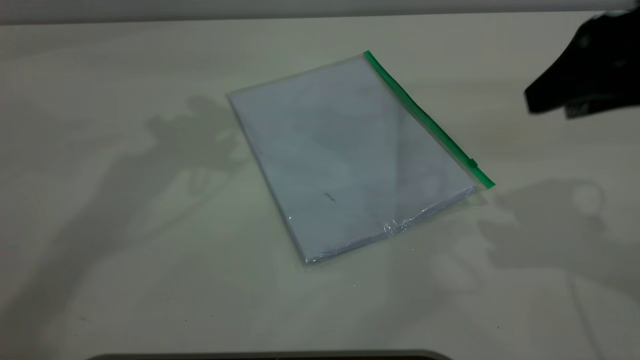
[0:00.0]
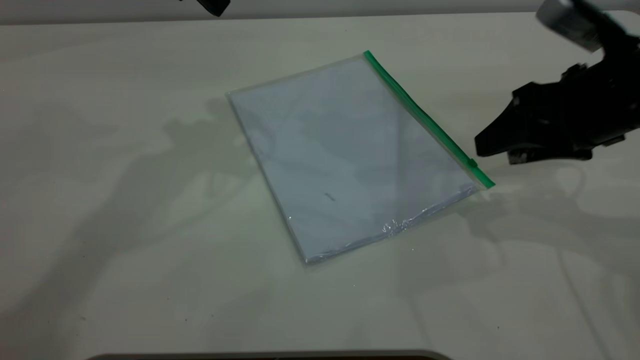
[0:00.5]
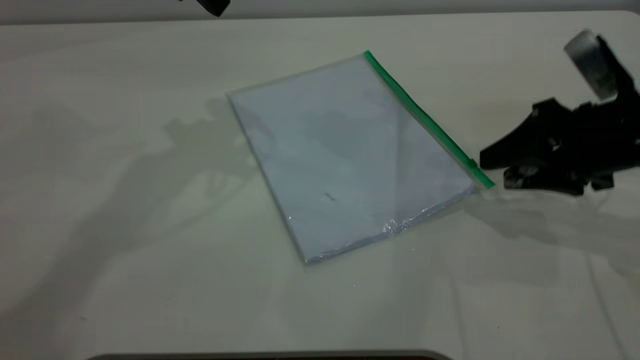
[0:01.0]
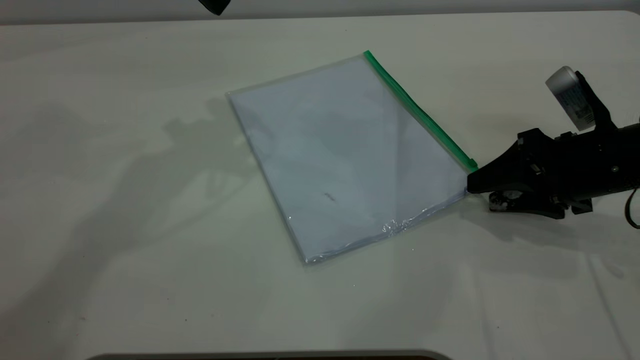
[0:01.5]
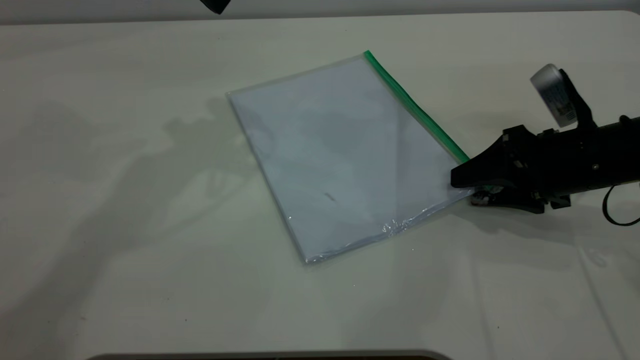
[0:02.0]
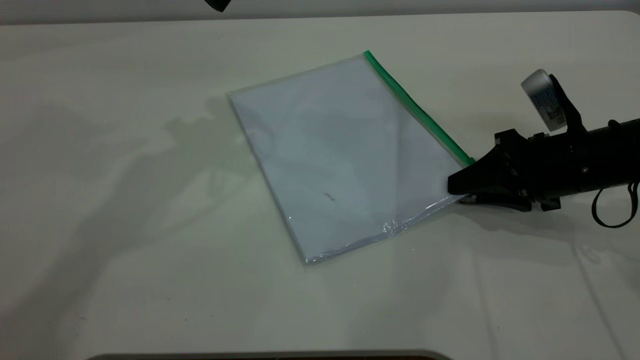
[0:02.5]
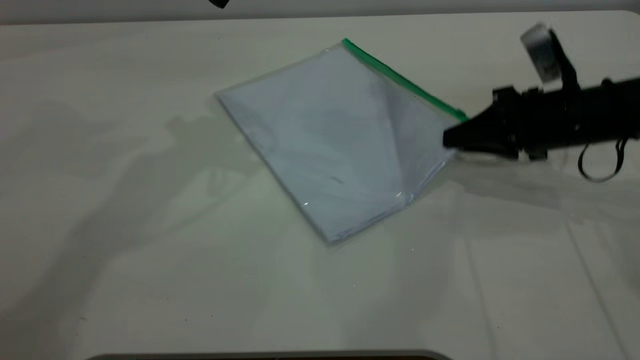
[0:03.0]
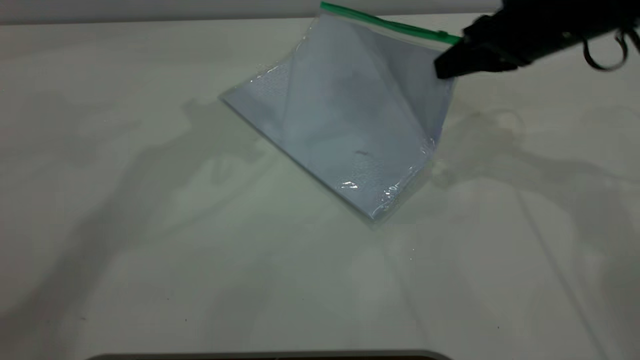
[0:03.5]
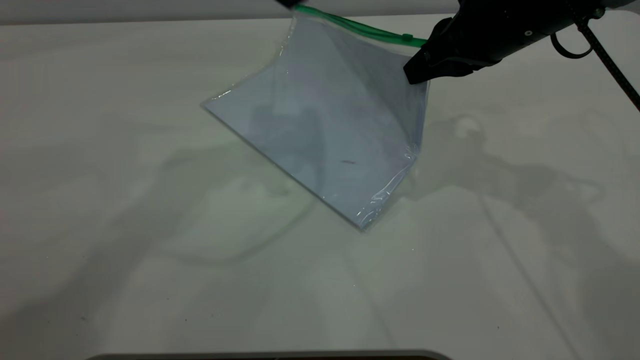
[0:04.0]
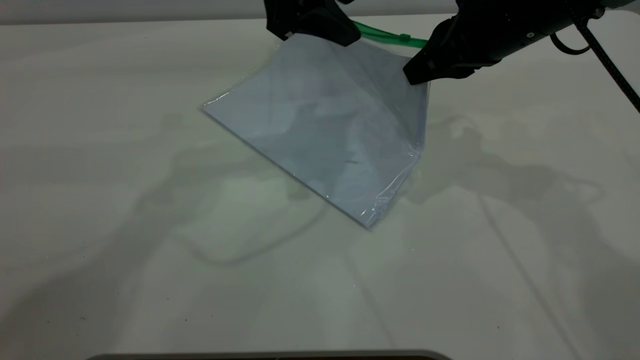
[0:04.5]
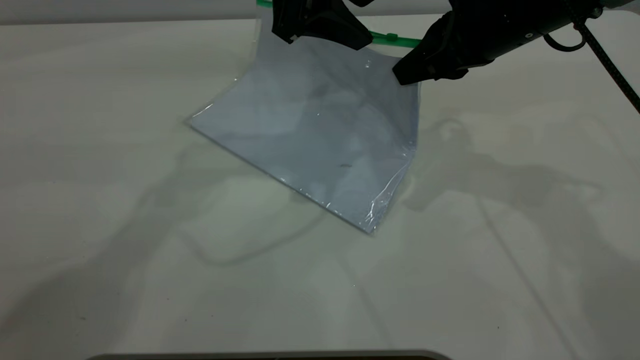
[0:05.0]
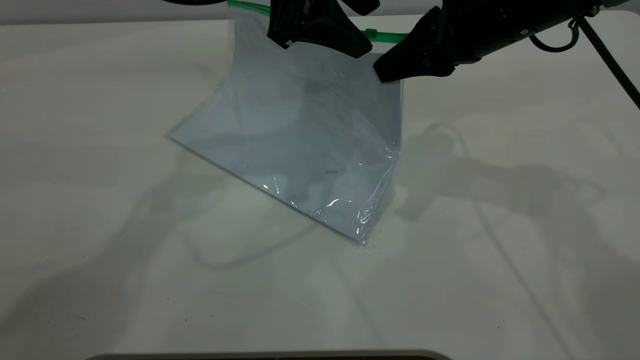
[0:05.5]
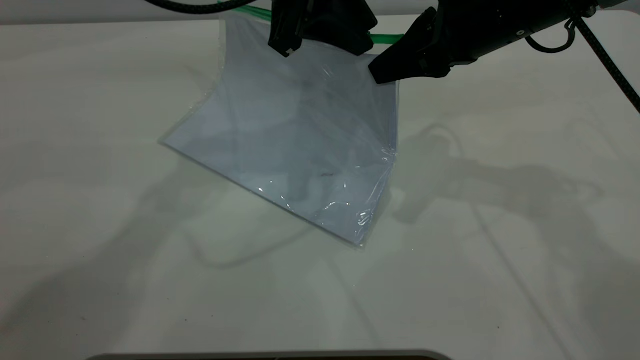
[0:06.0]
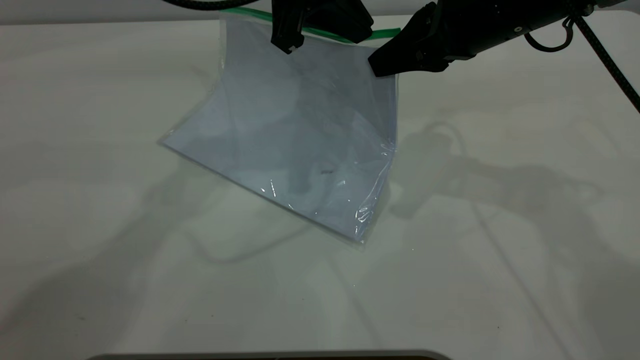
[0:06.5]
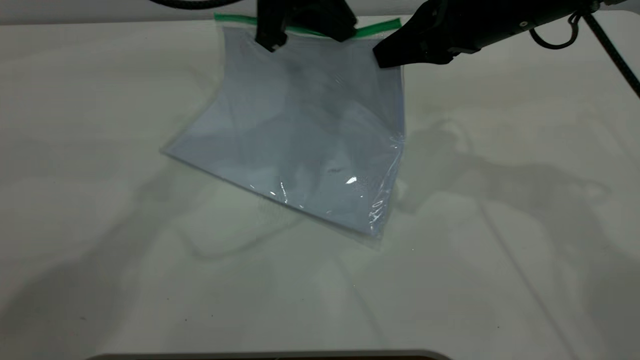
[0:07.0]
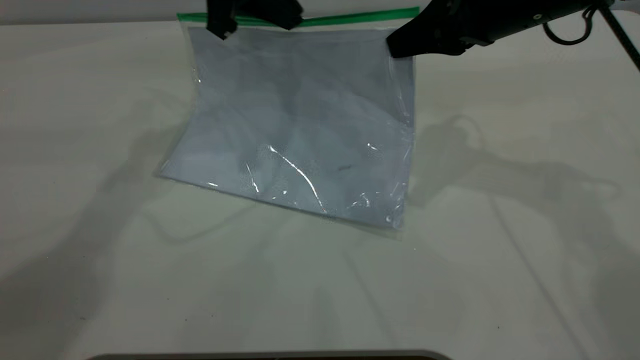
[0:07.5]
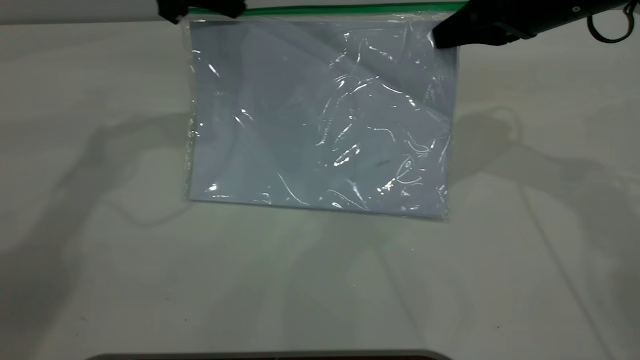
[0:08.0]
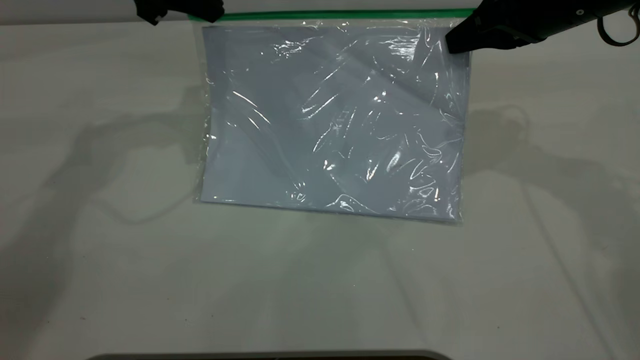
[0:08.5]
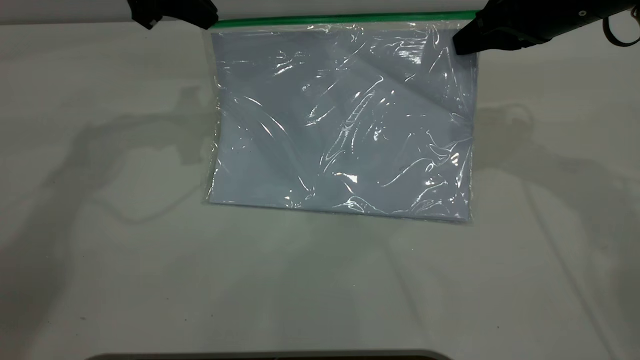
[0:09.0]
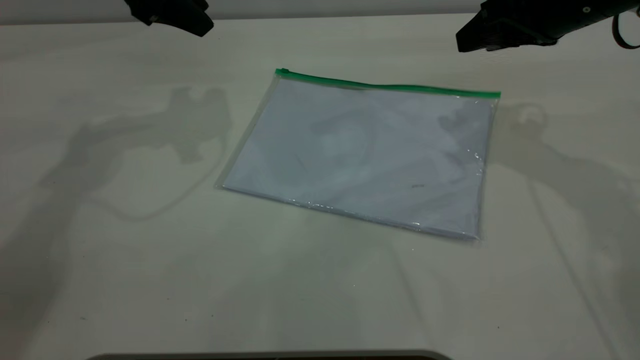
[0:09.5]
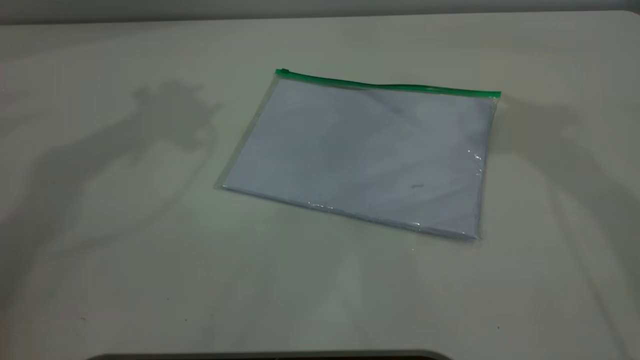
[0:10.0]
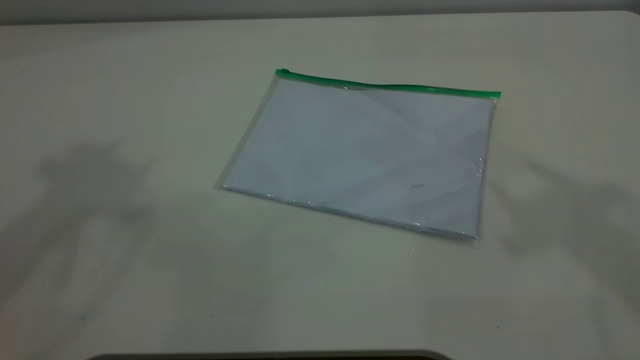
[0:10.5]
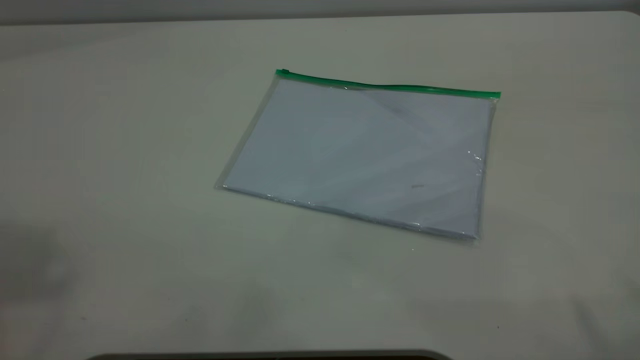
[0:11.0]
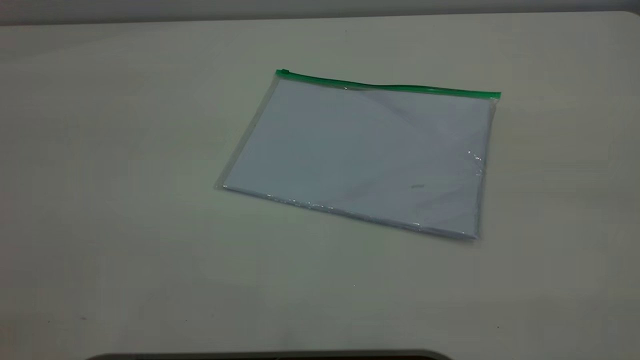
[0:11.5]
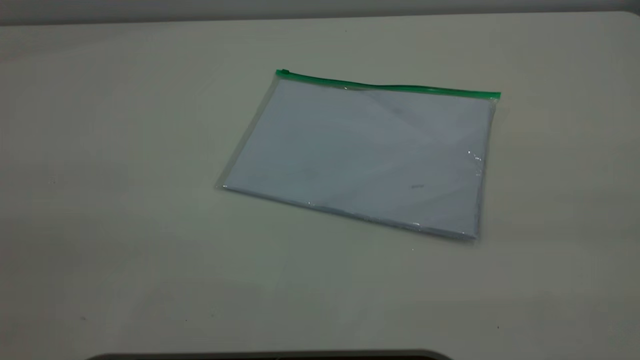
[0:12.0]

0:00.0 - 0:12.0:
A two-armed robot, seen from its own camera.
Step, 0:00.0 - 0:03.5: Pick up the transparent plastic bag with the right gripper.
Step, 0:04.0 - 0:09.0: Pulling up the zipper on the transparent plastic bag with the left gripper to close it.
Step, 0:09.5 - 0:10.5: Place the transparent plastic bag.
0:00.0 - 0:02.0: The right gripper travels downward by about 15 cm.
0:02.0 - 0:04.0: The right gripper goes roughly 15 cm upward, to the left and forward, and closes up. The left gripper shifts roughly 5 cm to the right.
0:04.0 - 0:06.0: The left gripper goes roughly 5 cm downward, and closes its fingers.
0:06.0 - 0:08.0: The right gripper shifts approximately 5 cm to the right. The left gripper heads to the left and forward, covering roughly 15 cm.
0:08.0 - 0:10.0: The grippers both shift upward by some 20 cm. The right gripper opens its fingers. Meanwhile the left gripper opens up.
